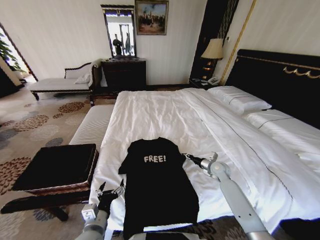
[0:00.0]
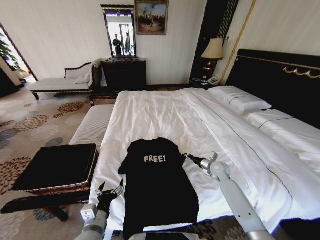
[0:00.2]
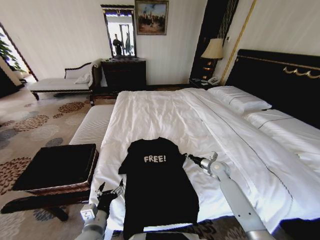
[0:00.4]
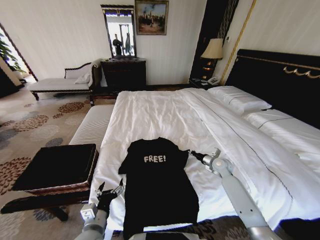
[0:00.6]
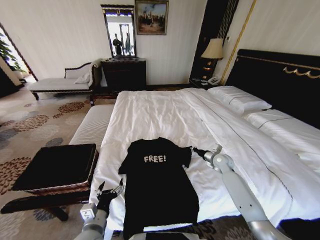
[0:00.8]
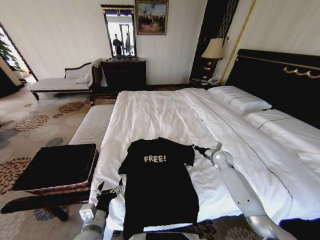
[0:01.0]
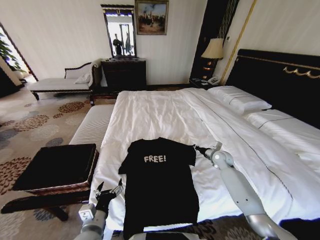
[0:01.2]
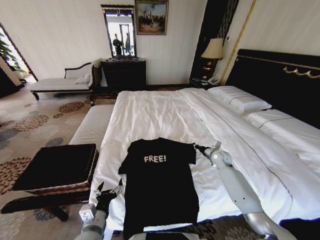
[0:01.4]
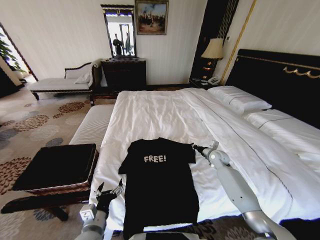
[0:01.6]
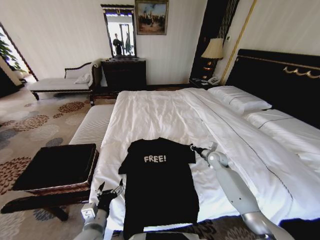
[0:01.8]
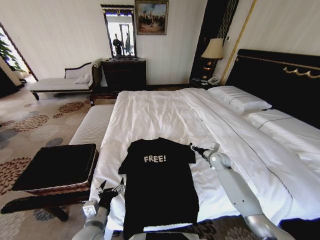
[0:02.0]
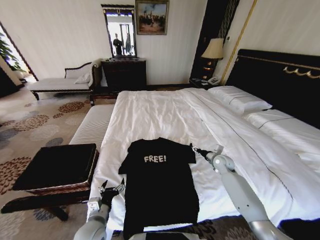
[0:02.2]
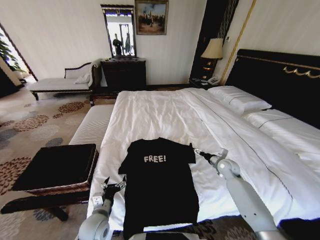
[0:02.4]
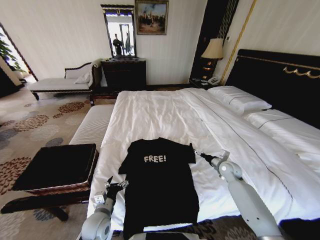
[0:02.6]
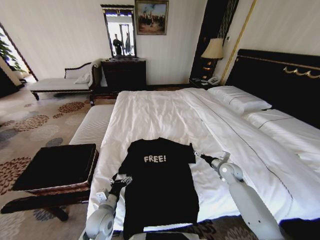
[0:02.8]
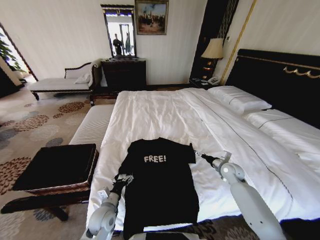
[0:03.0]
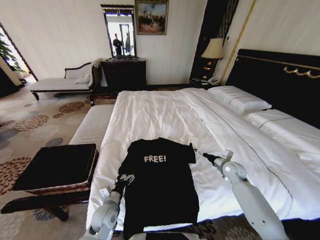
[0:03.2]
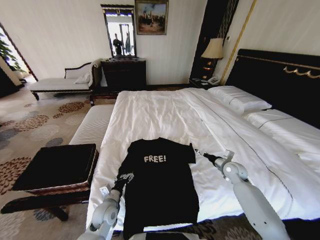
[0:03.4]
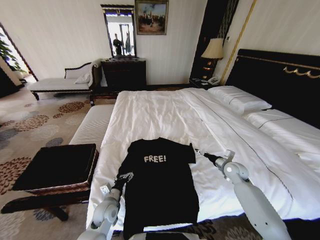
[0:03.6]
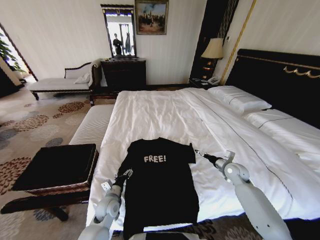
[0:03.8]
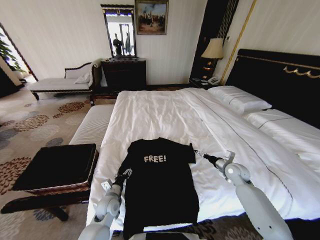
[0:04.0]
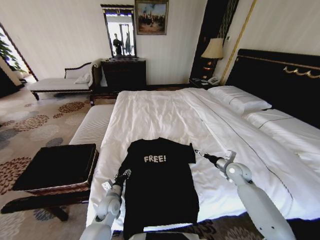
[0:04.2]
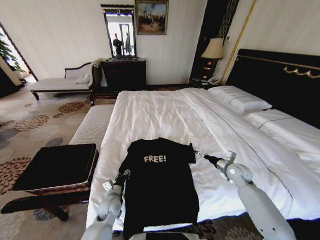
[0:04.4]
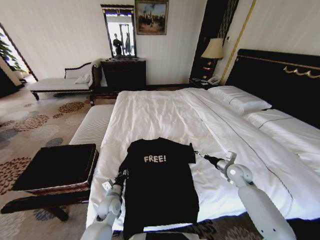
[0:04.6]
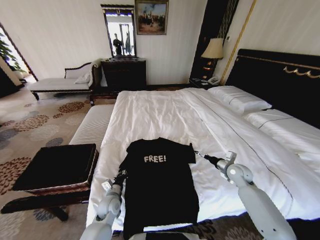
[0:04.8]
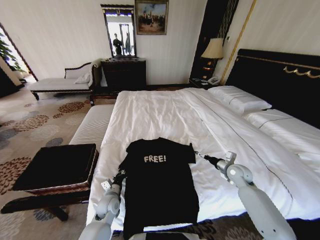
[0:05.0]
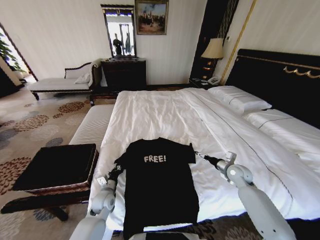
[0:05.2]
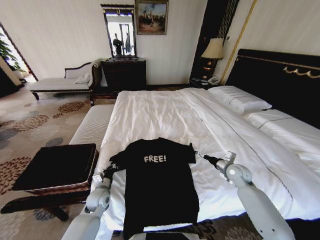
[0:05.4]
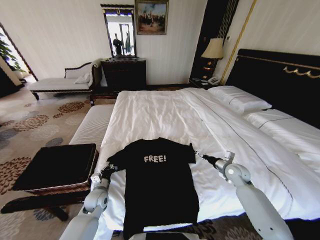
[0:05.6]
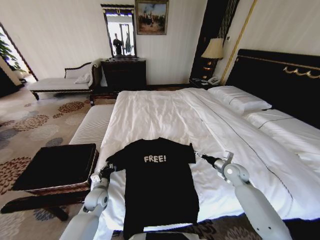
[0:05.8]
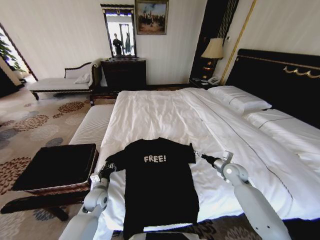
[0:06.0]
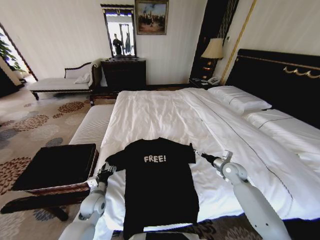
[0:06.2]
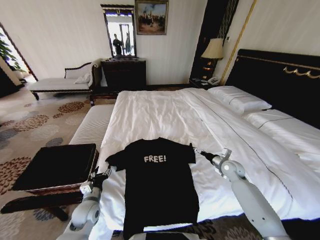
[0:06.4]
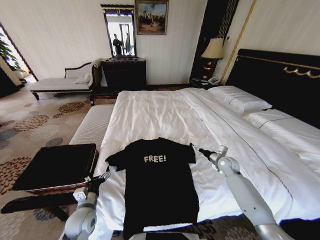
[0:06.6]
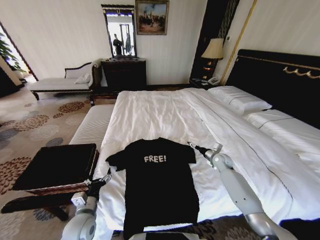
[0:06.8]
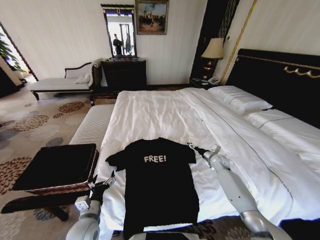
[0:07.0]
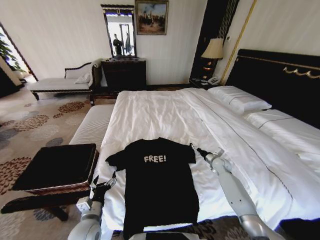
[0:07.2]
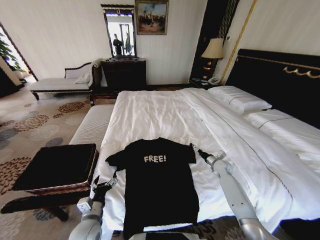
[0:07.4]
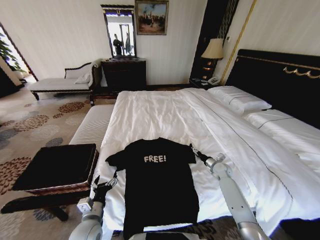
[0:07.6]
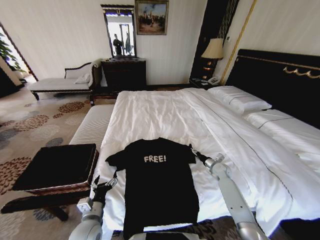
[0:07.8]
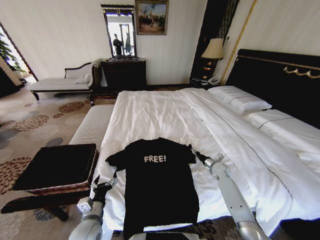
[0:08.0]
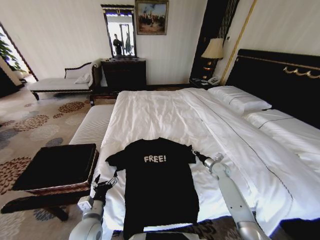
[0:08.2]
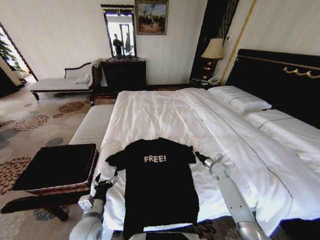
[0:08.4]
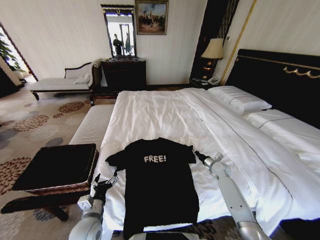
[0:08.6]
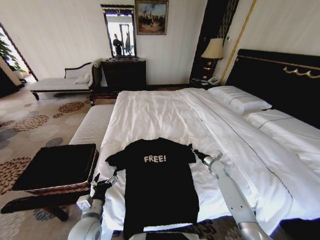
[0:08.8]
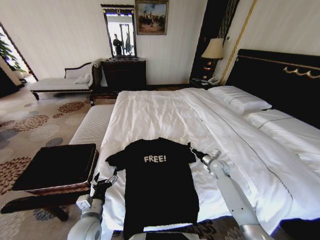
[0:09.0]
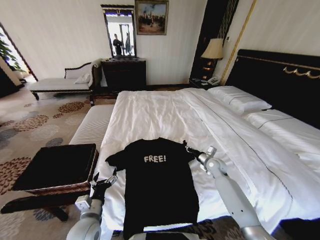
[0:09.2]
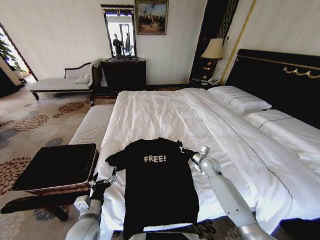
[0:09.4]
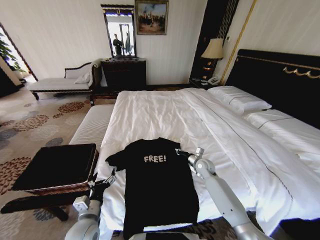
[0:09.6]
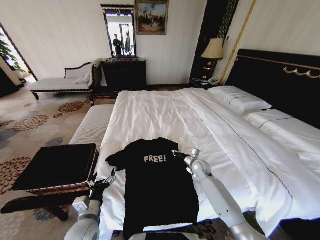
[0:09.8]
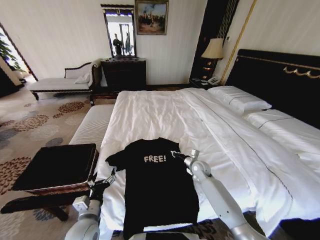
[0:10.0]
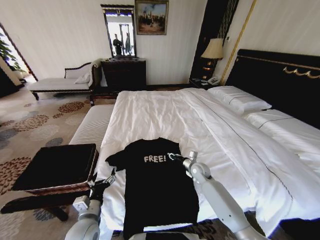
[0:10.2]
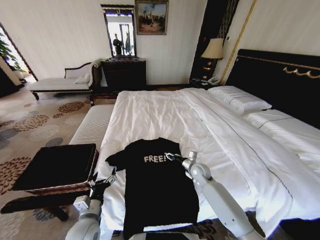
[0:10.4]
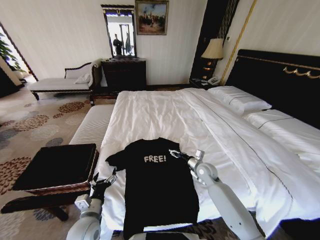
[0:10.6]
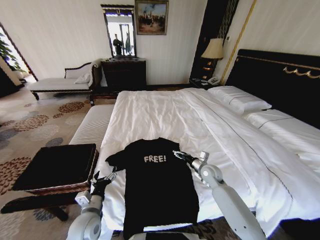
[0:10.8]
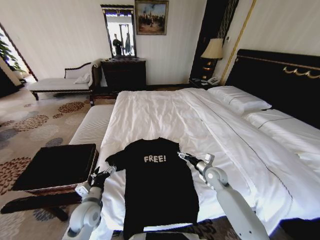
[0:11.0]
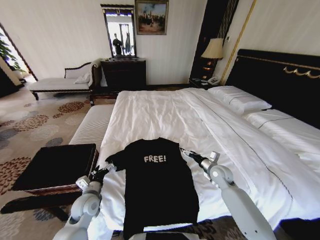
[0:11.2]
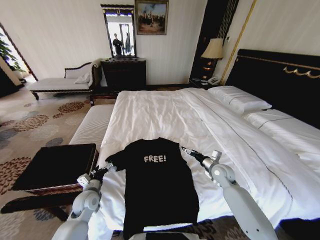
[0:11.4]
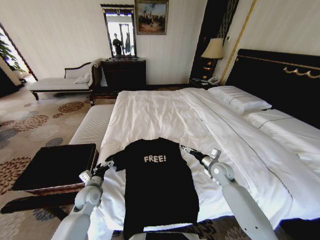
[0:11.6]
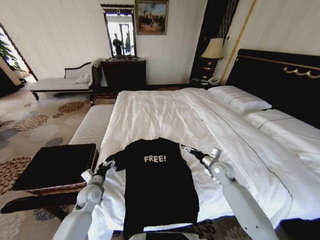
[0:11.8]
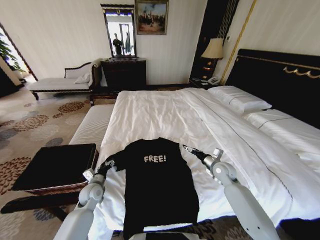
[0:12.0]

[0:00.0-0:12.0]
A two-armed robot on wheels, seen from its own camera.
Task of the whole recording: Fold the clothes on the bed and place them into the basket.
0.0 to 1.6 s: The right gripper goes about 5 cm forward, and closes.
1.6 to 3.0 s: The left gripper travels forward and downward by roughly 10 cm, while the right gripper goes approximately 10 cm backward, and opens.
3.0 to 4.4 s: The left gripper ends up about 5 cm from where it was, and closes up.
4.4 to 6.0 s: The left gripper travels to the left by some 5 cm.
6.0 to 7.6 s: The right gripper goes approximately 10 cm downward and forward. The left gripper is displaced backward by about 15 cm, and opens up.
7.6 to 9.0 s: The right gripper closes.
9.0 to 10.4 s: The right gripper heads to the left, covering approximately 15 cm, and opens its fingers.
10.4 to 12.0 s: The right gripper goes approximately 10 cm to the right, and opens its fingers. The left gripper heads forward, covering some 15 cm.

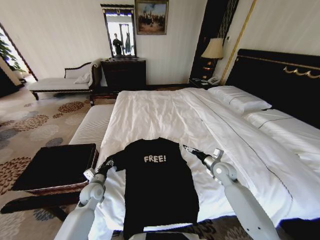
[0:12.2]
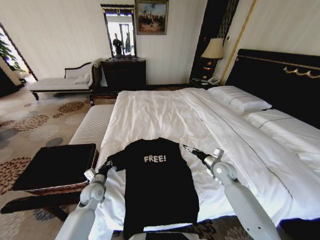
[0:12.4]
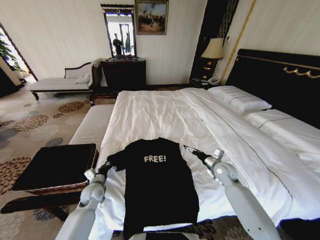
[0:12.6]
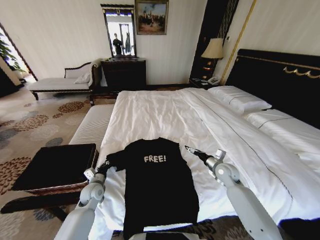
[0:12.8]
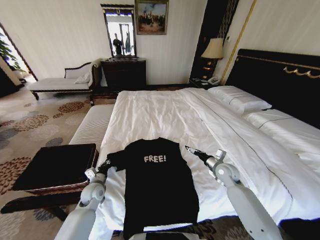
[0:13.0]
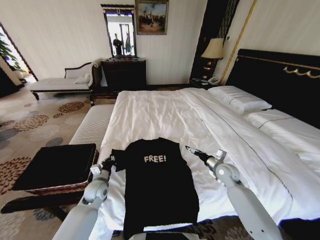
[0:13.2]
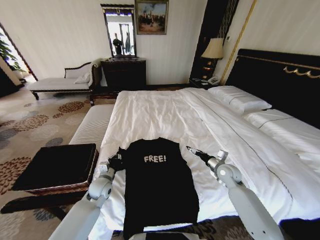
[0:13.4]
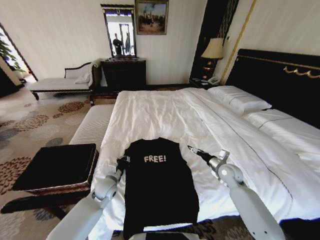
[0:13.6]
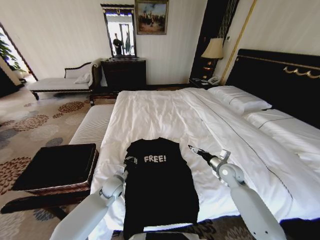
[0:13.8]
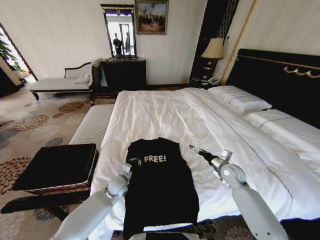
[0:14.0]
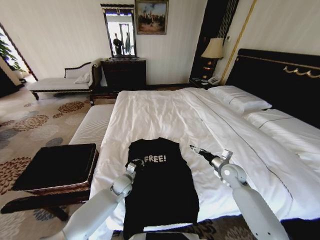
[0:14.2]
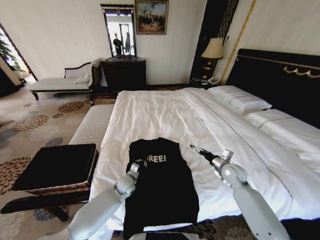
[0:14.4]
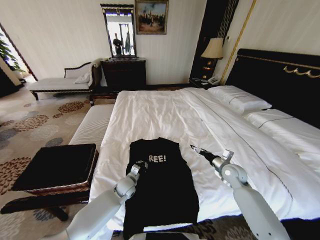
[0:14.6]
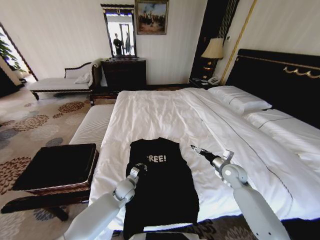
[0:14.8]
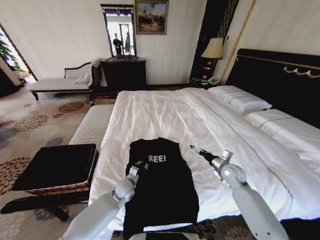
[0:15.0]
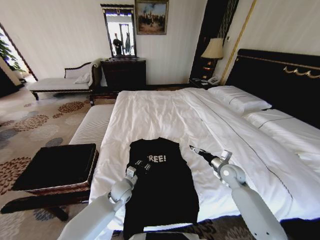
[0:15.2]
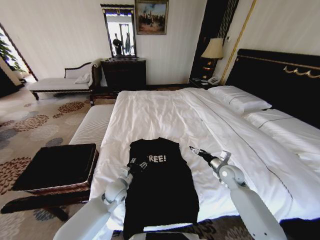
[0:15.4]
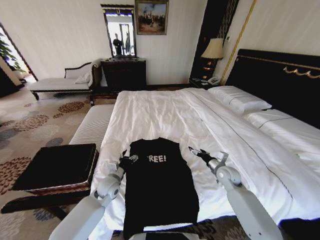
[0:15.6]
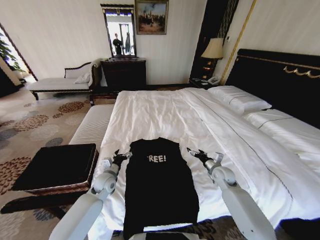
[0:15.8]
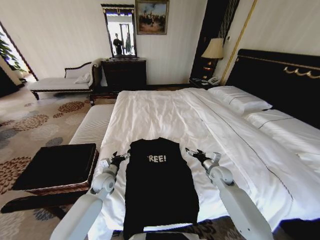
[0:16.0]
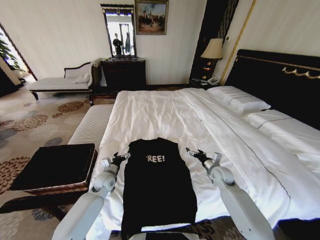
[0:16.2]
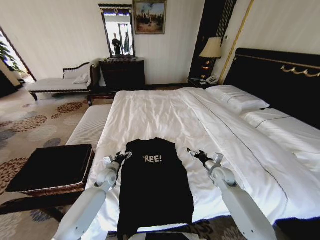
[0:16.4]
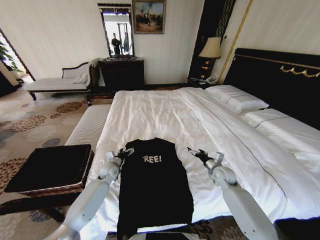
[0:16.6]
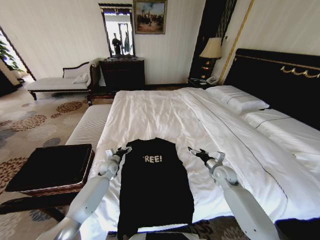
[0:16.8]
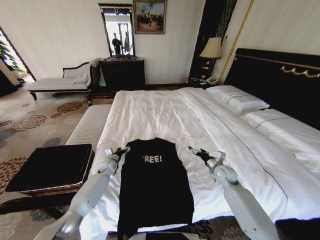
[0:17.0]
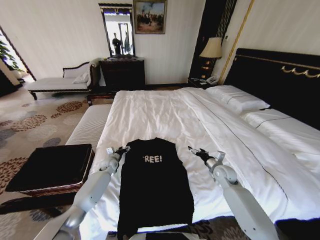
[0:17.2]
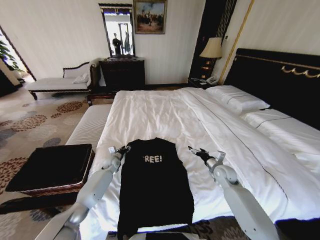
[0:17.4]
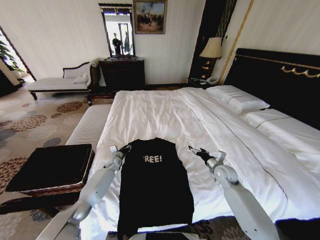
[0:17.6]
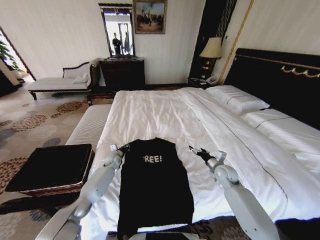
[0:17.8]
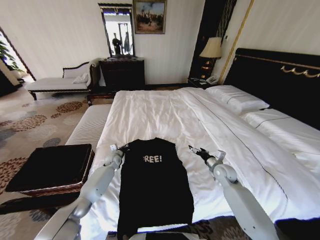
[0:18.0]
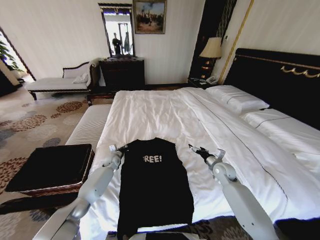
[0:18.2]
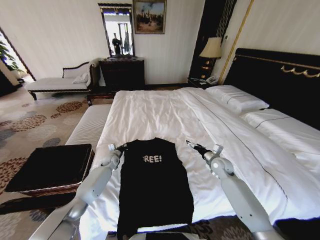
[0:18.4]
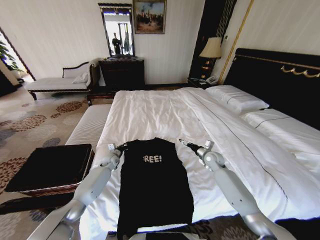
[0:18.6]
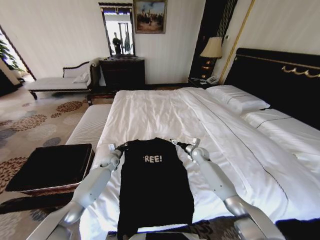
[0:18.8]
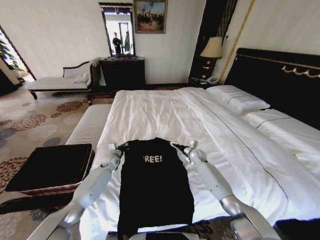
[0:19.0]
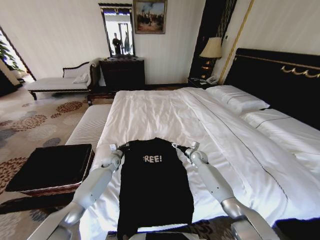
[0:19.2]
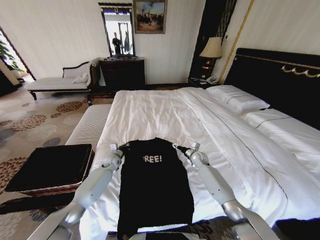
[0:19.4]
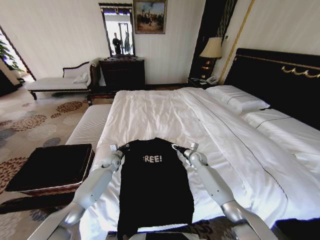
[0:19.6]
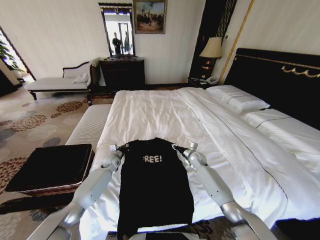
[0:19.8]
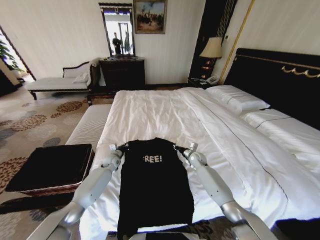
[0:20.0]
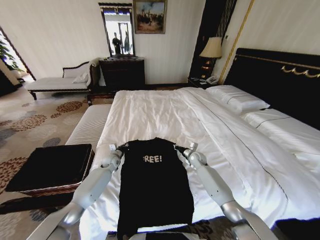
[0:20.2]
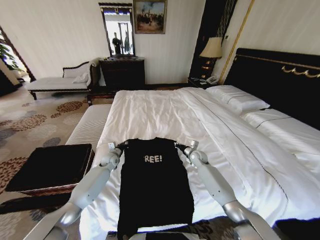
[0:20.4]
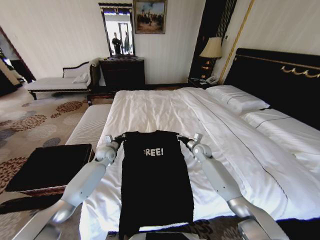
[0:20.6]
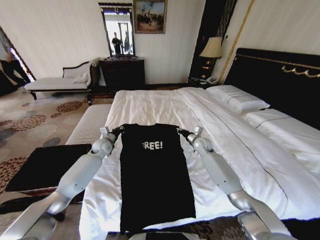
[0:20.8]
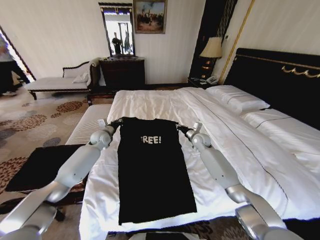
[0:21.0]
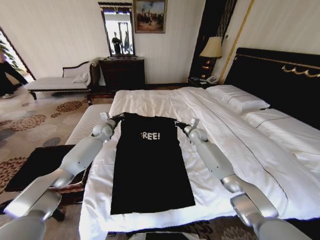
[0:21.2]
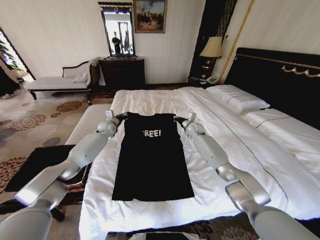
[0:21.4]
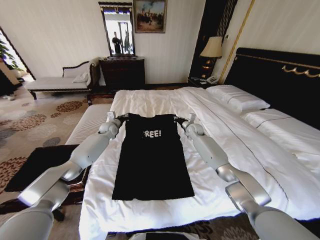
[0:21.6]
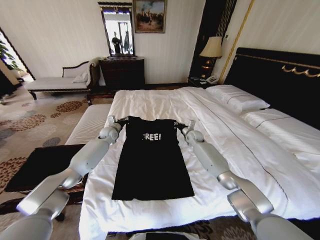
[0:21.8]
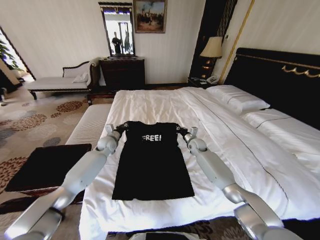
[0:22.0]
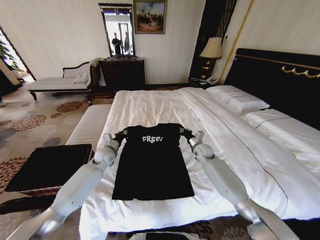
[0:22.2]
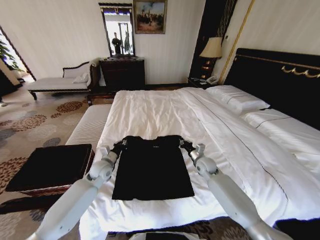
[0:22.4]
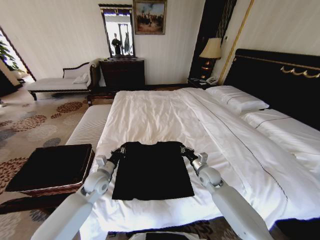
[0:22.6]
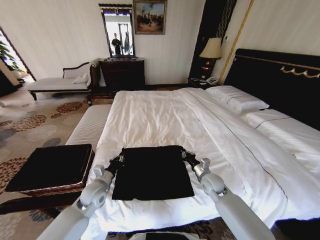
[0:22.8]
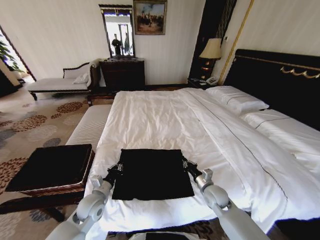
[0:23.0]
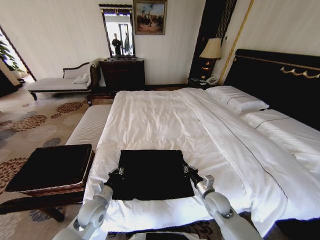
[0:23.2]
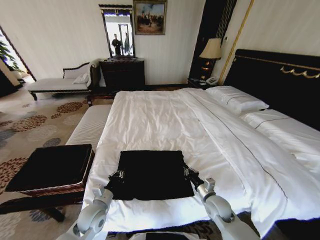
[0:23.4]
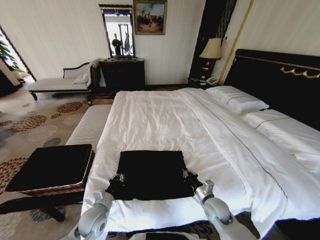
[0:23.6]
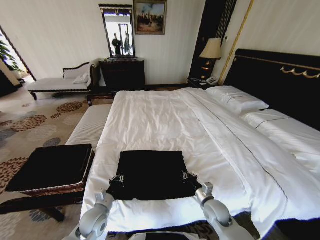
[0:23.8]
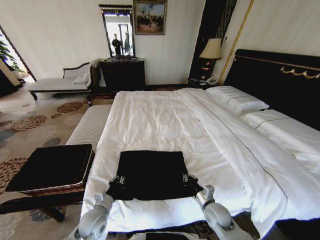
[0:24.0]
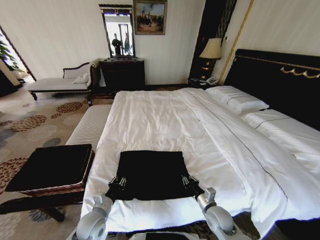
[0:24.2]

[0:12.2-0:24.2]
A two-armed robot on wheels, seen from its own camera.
Task of the whole recording: Fold the clothes on the bed and place them into the basket.
12.2 to 13.8 s: The left gripper moves to the right, roughly 10 cm, and closes up.
13.8 to 15.2 s: The left gripper opens.
15.2 to 16.6 s: The left gripper moves forward and to the left, some 15 cm, and opens its fingers.
16.6 to 18.2 s: The left gripper heads forward, covering approximately 10 cm, and closes up.
18.2 to 19.8 s: The right gripper moves forward, to the left and downward, approximately 15 cm, and closes up.
19.8 to 21.2 s: Both grippers move upward and forward, roughly 15 cm. The right gripper closes its fingers.
21.2 to 22.6 s: The left gripper is displaced backward by approximately 25 cm. The right gripper is displaced backward and downward by approximately 20 cm.
22.6 to 24.2 s: The right gripper is displaced backward by some 15 cm. Meanwhile the left gripper heads backward and downward, covering approximately 15 cm.
